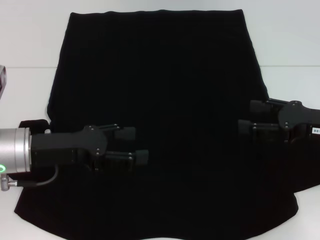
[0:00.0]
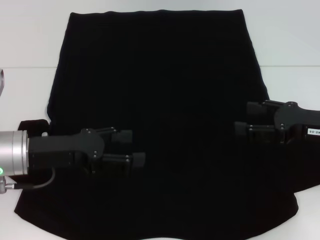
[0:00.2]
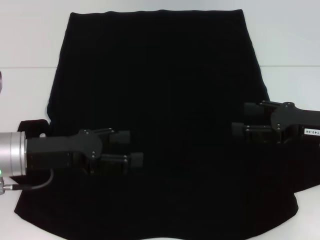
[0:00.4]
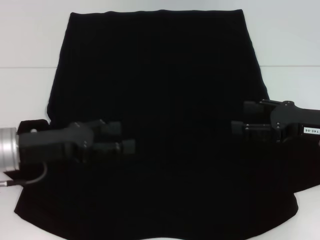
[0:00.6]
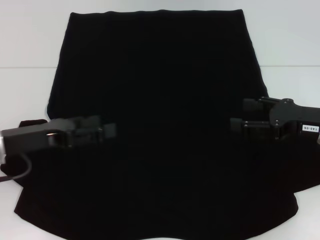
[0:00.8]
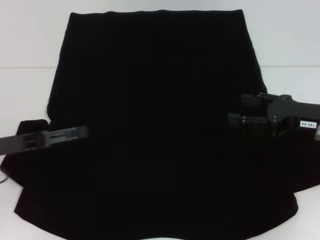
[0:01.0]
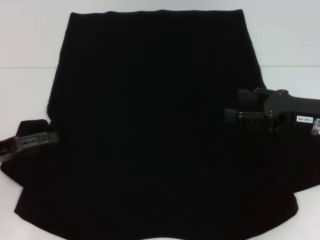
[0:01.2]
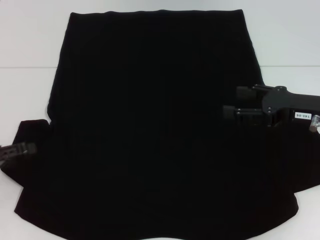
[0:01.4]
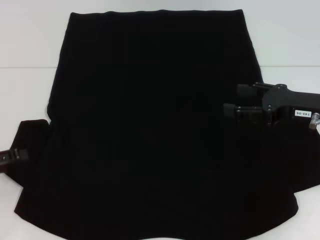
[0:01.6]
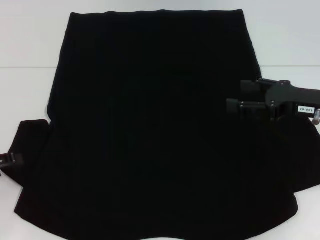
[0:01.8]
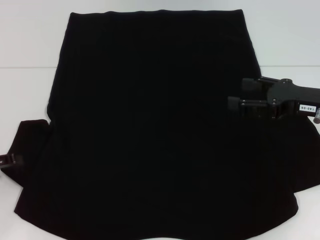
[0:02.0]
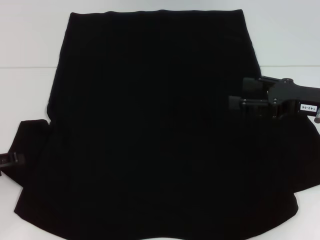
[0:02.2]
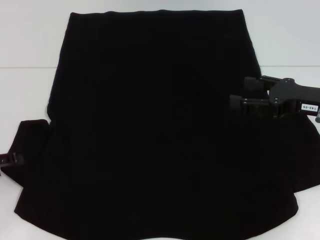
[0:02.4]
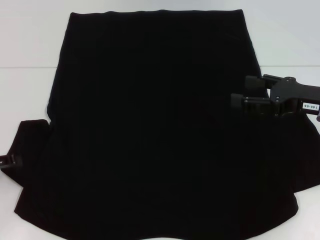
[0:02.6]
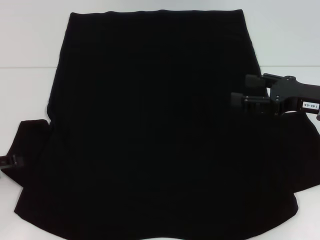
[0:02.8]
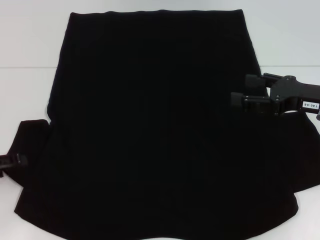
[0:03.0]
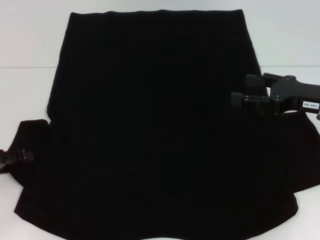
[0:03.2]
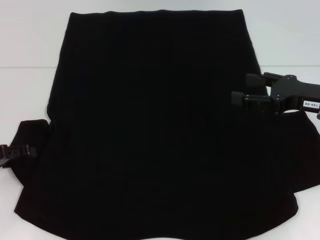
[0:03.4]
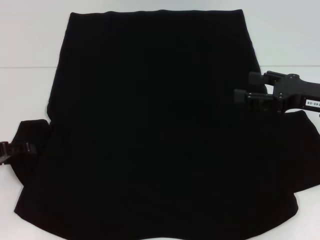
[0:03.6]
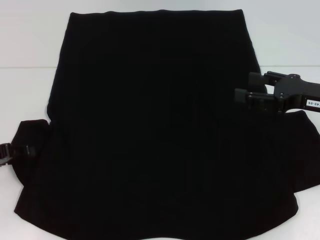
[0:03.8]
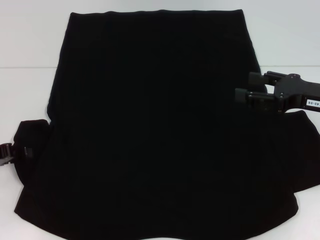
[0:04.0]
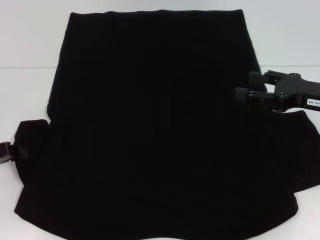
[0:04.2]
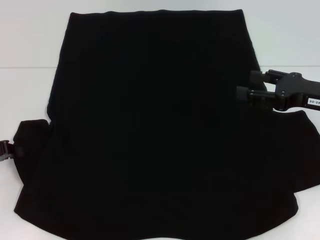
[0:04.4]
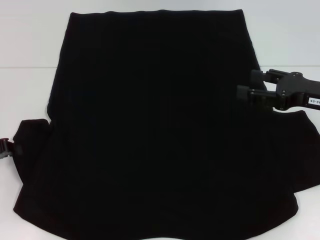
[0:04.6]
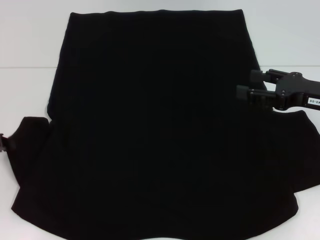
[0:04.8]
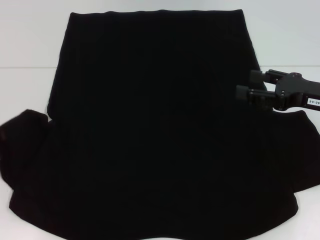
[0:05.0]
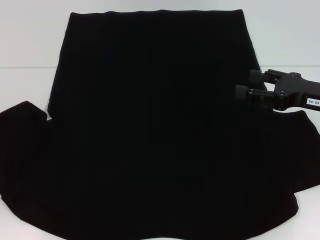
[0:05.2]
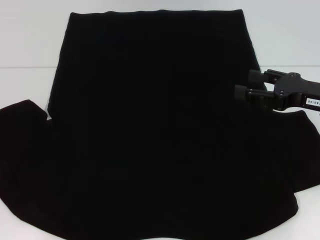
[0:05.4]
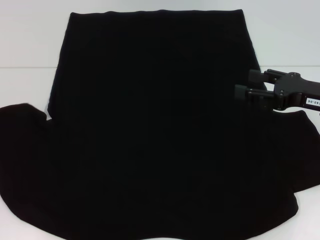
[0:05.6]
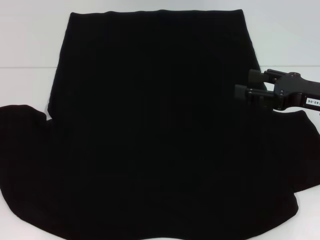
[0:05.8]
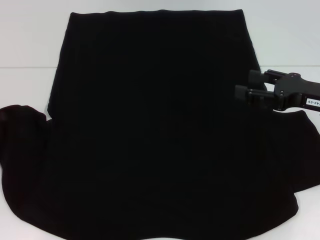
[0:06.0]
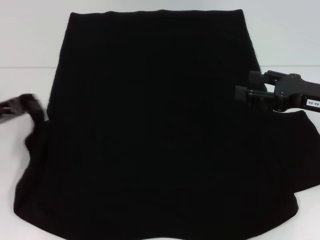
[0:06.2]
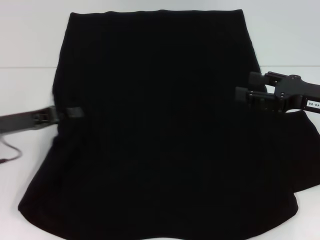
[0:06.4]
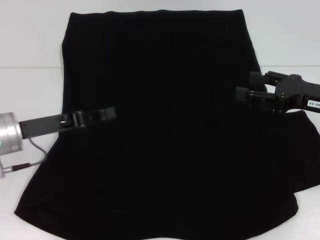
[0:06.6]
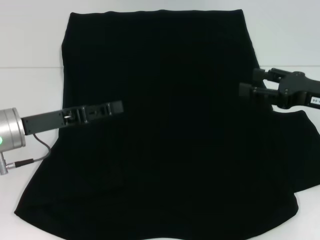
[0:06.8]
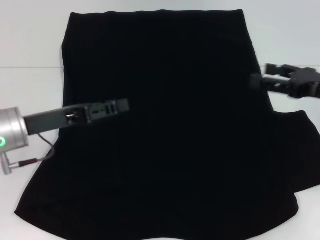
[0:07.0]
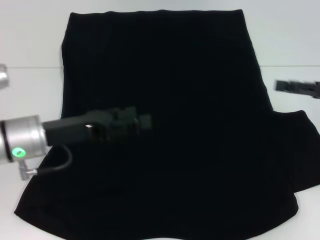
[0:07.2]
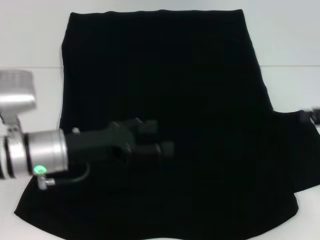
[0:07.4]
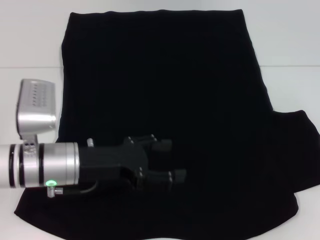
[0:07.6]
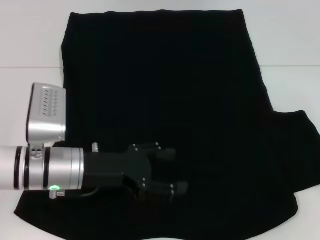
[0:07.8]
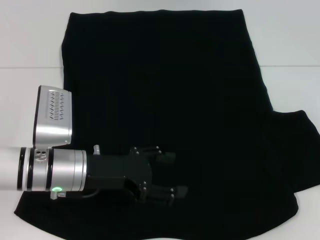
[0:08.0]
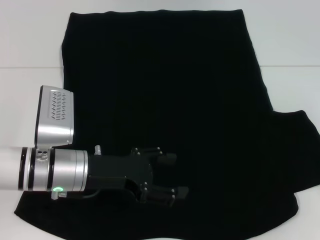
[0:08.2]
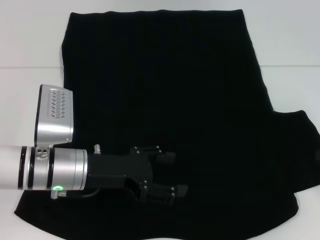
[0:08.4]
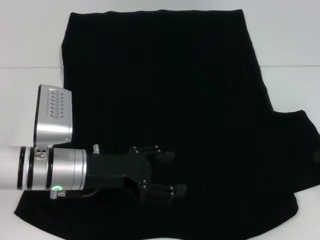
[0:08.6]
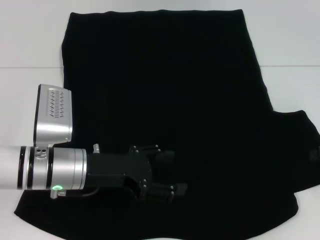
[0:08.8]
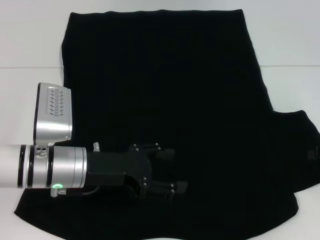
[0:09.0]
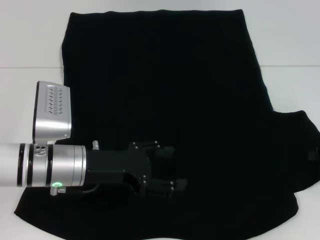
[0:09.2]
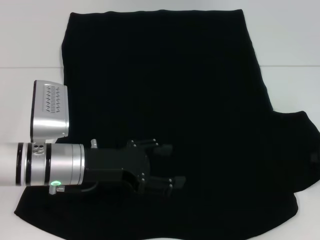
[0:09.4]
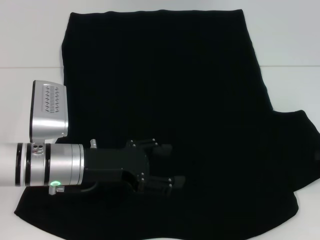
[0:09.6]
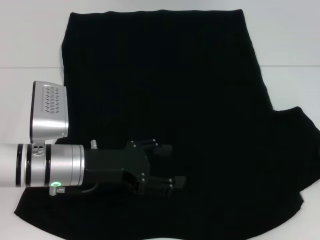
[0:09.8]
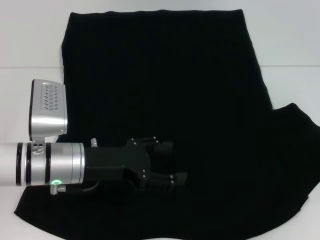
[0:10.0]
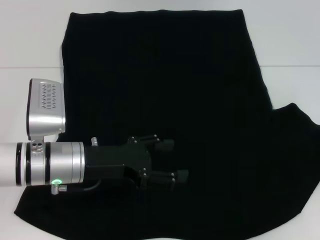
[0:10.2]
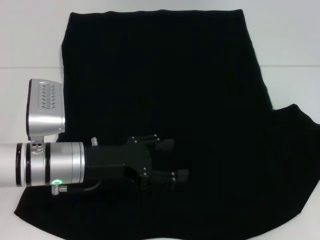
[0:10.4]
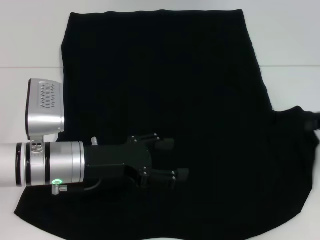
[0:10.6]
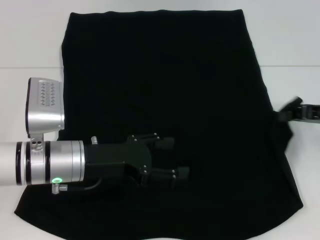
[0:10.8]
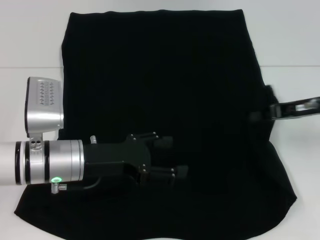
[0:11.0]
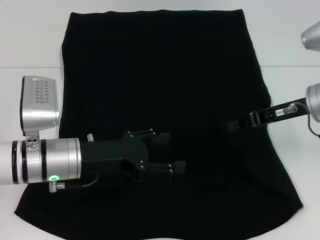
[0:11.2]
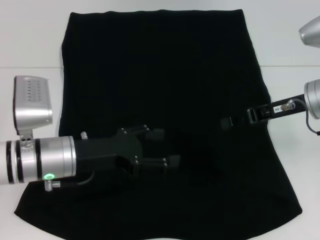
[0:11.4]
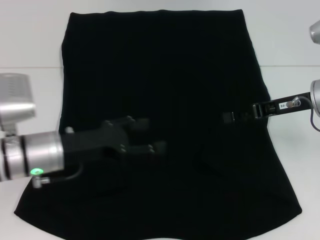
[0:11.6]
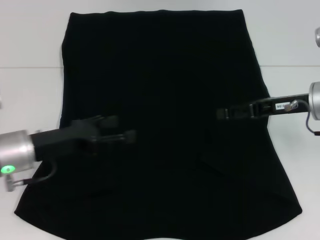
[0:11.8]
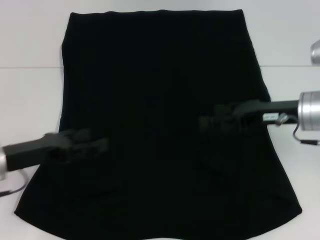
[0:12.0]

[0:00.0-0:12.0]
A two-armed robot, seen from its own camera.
Step, 0:00.0 to 0:07.2: Fold the bottom left sleeve with your left hand.
Step, 0:07.4 to 0:11.8: Fold the bottom right sleeve with your right hand.
0:00.0 to 0:01.6: The left gripper travels to the left by about 15 cm.
0:01.6 to 0:03.0: There are only small adjustments of the grippers.
0:03.0 to 0:04.4: The left gripper closes.
0:04.4 to 0:06.0: There are only small adjustments of the grippers.
0:06.0 to 0:07.6: The right gripper is displaced to the right by about 10 cm. The left gripper shifts some 20 cm to the right, and opens up.
0:07.6 to 0:09.0: The grippers stay close to where they were, moving slightly.
0:09.0 to 0:10.4: The right gripper closes.
0:10.4 to 0:12.0: The two grippers go approximately 15 cm to the left. The right gripper opens its fingers.

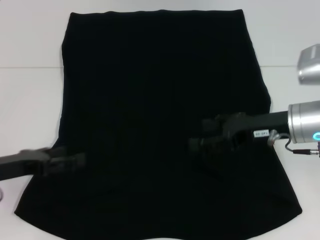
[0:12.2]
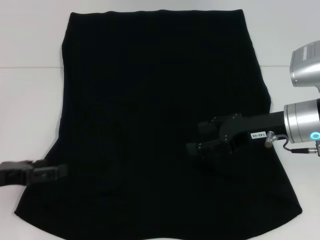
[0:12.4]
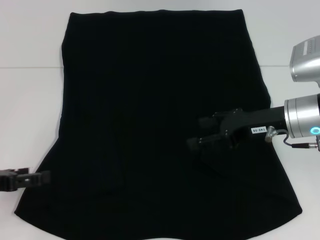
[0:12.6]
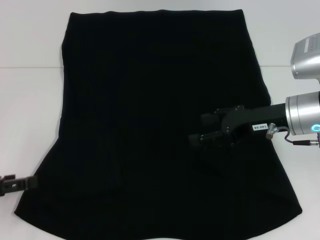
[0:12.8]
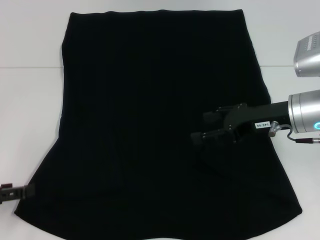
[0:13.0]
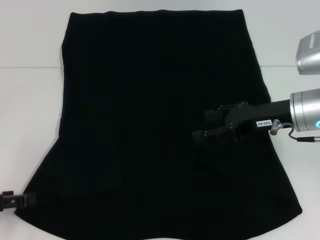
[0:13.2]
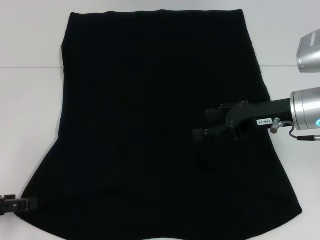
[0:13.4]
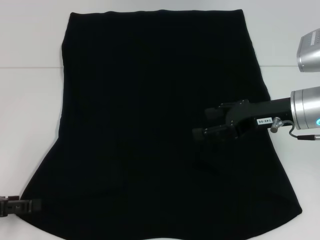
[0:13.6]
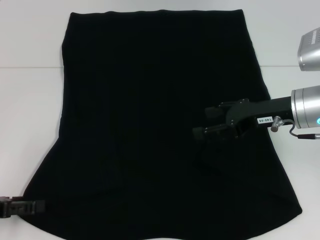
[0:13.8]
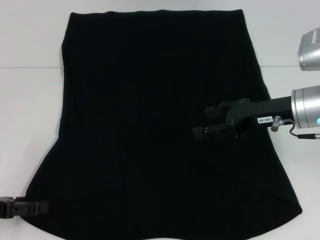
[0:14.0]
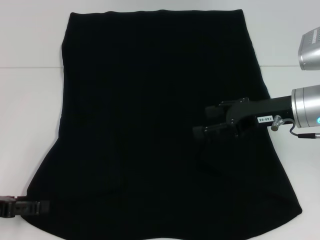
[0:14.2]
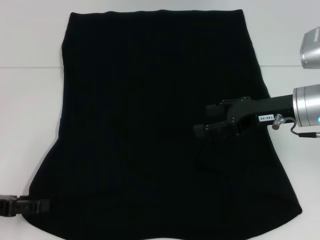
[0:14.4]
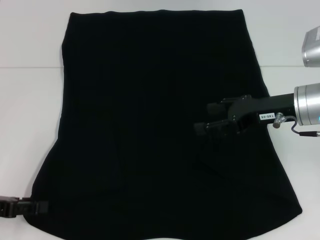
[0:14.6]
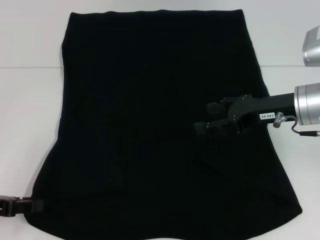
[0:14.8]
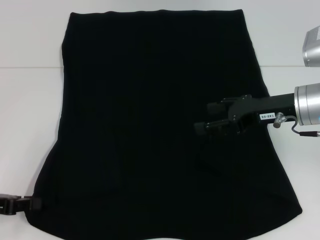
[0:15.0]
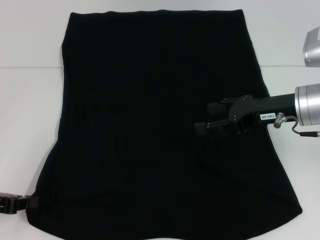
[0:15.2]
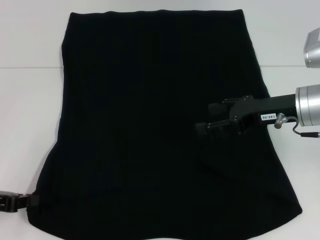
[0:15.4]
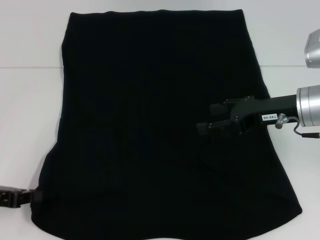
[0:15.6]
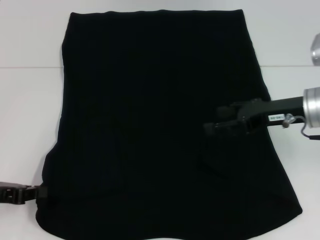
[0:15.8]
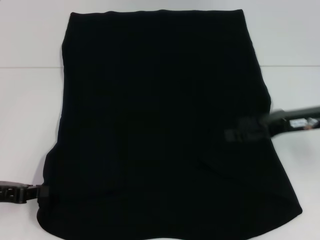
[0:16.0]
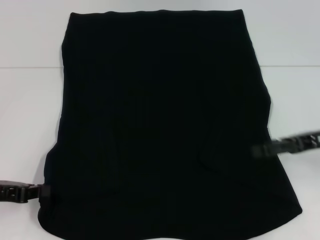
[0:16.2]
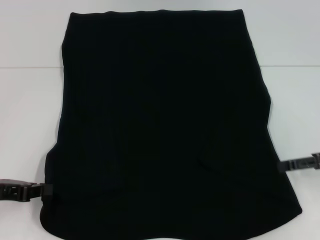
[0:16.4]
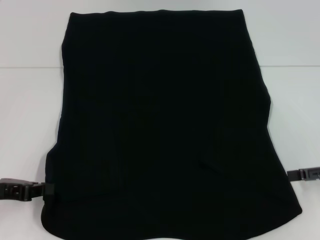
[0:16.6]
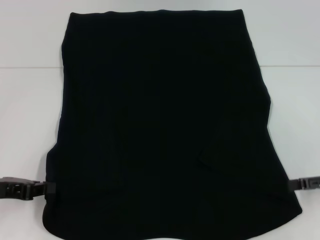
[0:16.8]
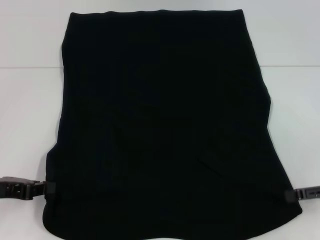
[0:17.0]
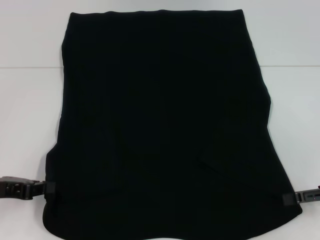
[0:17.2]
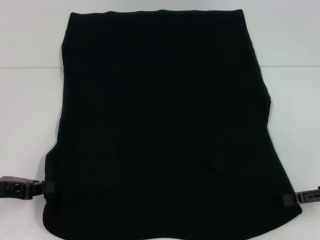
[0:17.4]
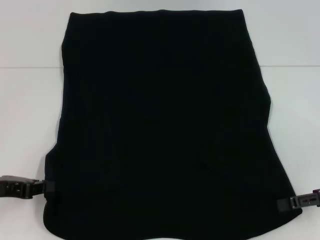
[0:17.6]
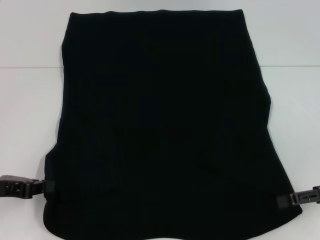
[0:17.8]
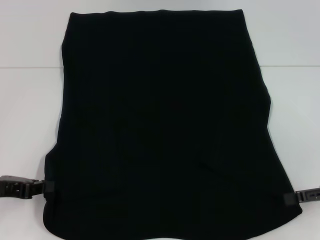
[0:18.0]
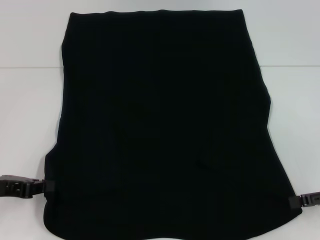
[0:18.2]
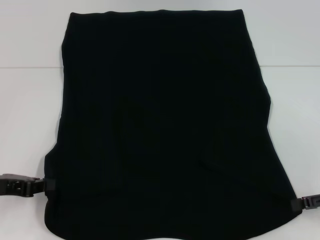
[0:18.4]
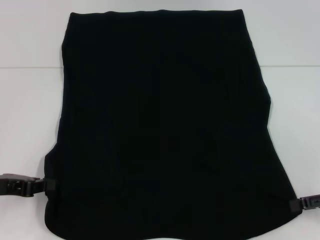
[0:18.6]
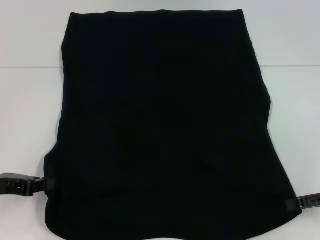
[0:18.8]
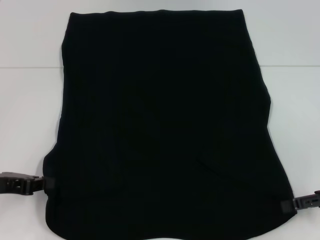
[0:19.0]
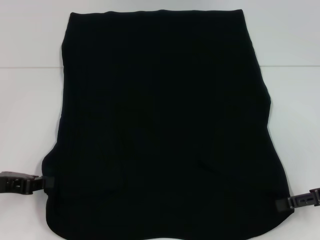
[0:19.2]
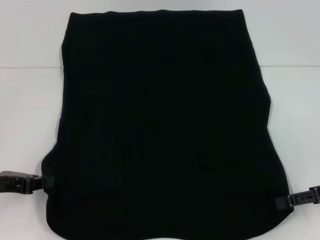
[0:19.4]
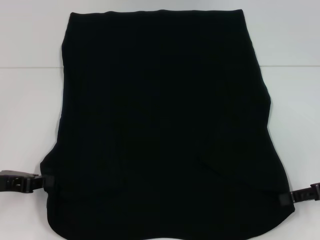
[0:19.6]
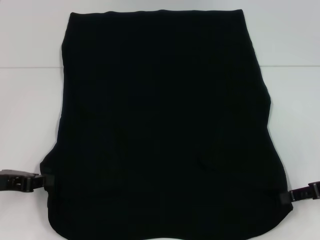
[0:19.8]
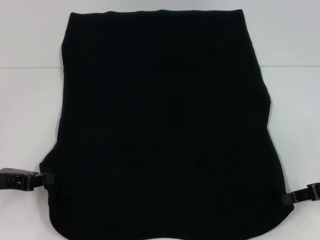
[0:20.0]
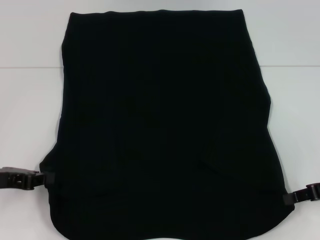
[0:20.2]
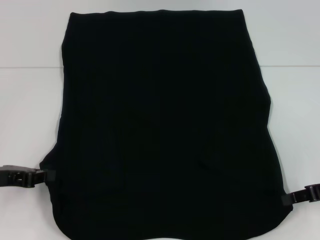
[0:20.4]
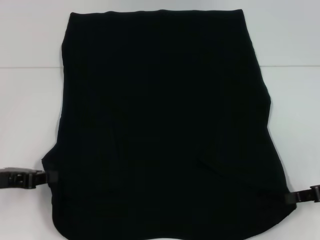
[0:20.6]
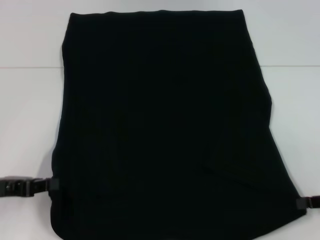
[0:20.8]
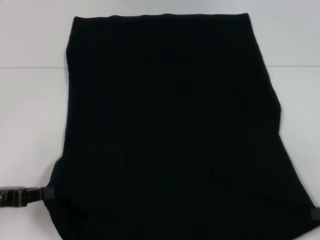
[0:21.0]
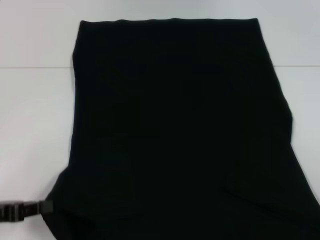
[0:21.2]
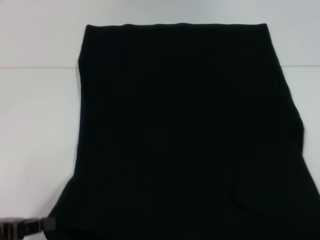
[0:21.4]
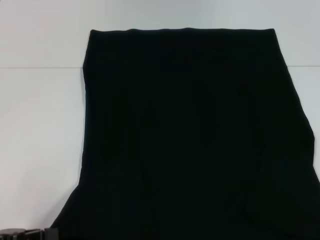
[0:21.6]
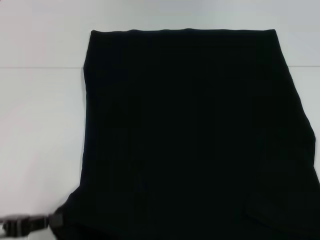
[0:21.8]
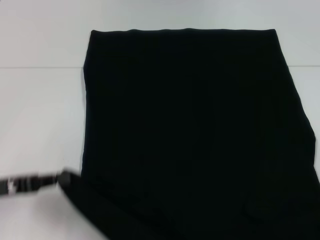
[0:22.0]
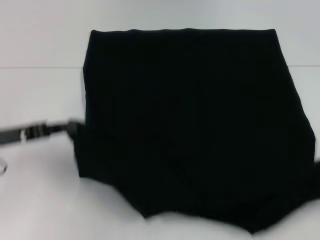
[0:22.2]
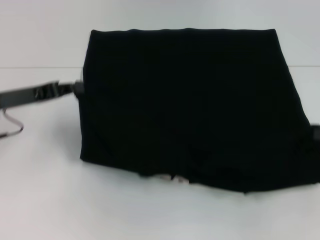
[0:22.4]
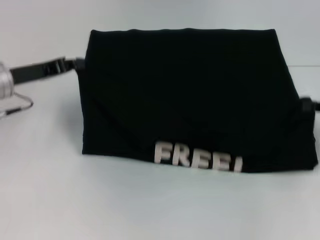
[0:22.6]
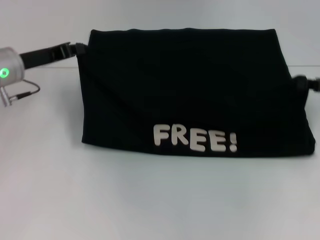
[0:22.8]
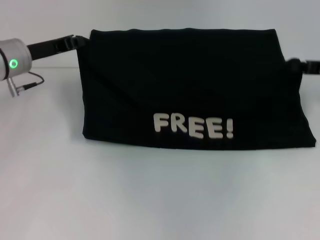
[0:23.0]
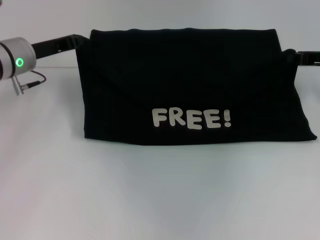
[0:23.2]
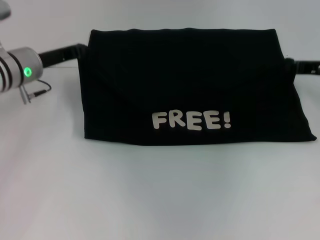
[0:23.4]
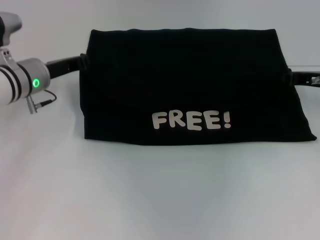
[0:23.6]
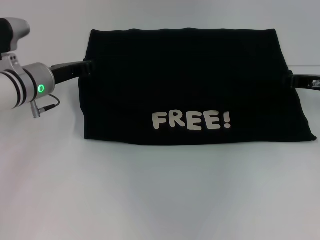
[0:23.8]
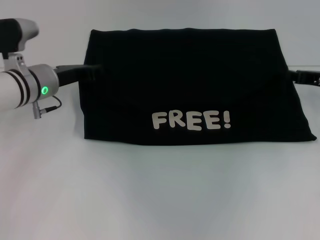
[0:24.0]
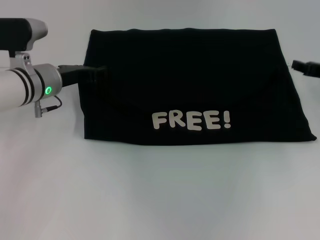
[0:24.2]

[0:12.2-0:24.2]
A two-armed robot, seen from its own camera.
Step, 0:12.2 to 0:19.6: Grab the bottom left corner with your left hand.
Step, 0:12.2 to 0:19.6: Grab the bottom right corner with your right hand.
0:12.2 to 0:13.8: The left gripper moves approximately 5 cm.
0:13.8 to 0:15.2: The left gripper closes its fingers.
0:15.2 to 0:16.6: The right gripper is displaced to the right and backward by some 15 cm.
0:16.6 to 0:19.8: The grippers stay close to where they were, moving slightly.
0:19.8 to 0:21.2: The right gripper goes approximately 10 cm backward and to the right, and closes its fingers. The left gripper shifts about 5 cm backward.
0:21.2 to 0:22.6: The grippers both shift forward by approximately 15 cm.
0:22.6 to 0:24.2: The right gripper is displaced forward by some 5 cm, while the left gripper is displaced to the right by about 5 cm.
